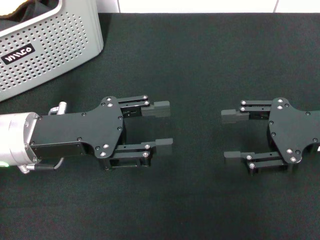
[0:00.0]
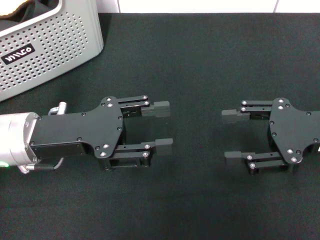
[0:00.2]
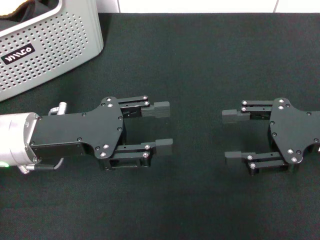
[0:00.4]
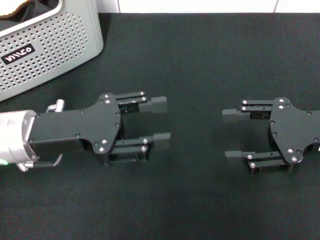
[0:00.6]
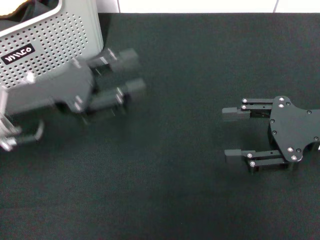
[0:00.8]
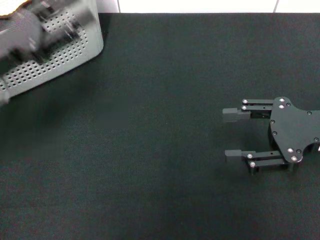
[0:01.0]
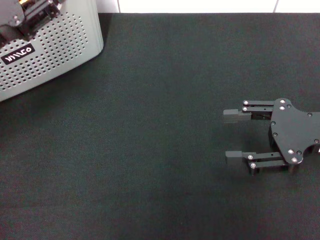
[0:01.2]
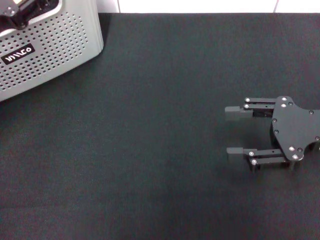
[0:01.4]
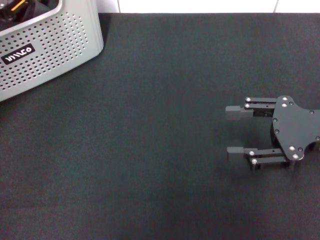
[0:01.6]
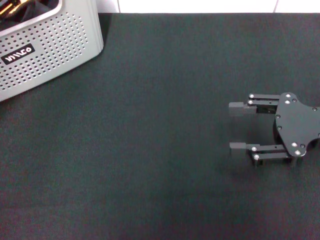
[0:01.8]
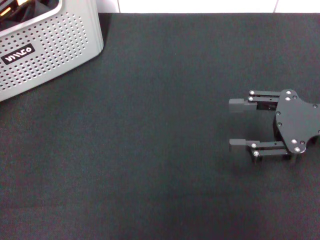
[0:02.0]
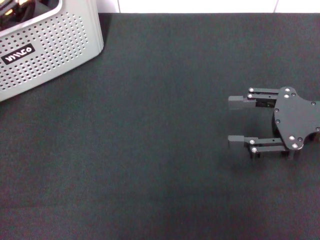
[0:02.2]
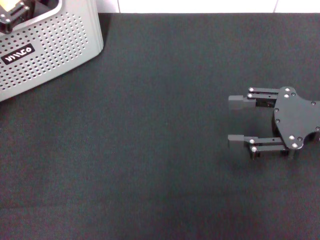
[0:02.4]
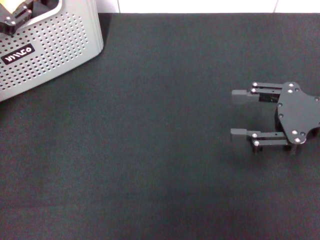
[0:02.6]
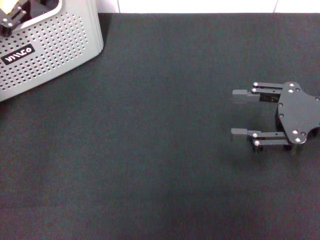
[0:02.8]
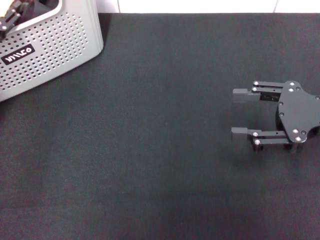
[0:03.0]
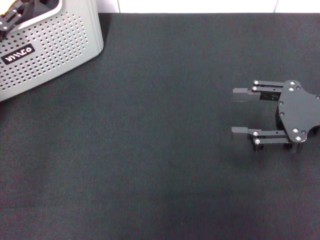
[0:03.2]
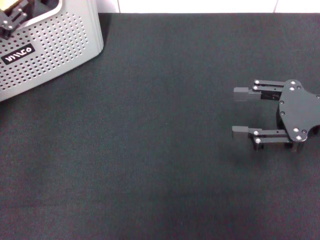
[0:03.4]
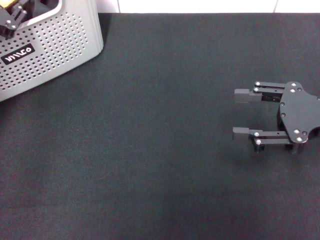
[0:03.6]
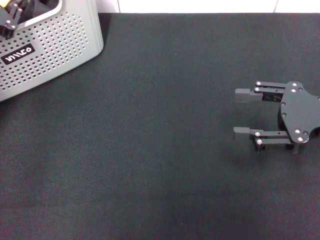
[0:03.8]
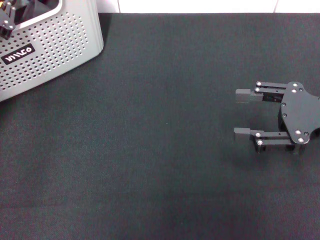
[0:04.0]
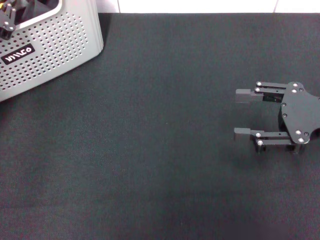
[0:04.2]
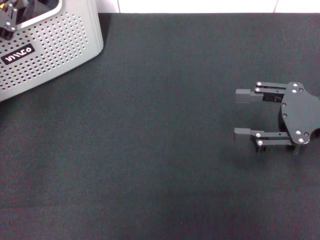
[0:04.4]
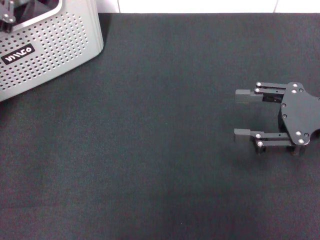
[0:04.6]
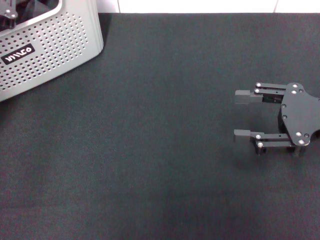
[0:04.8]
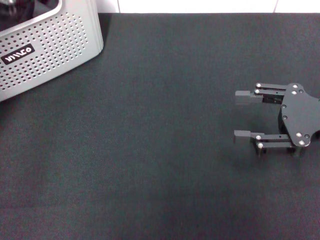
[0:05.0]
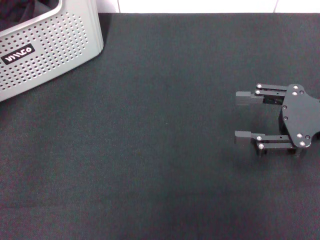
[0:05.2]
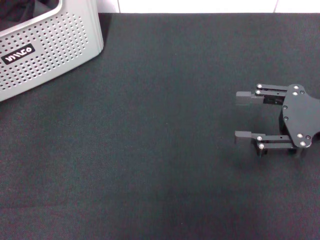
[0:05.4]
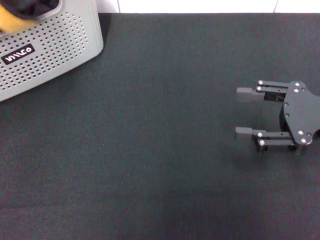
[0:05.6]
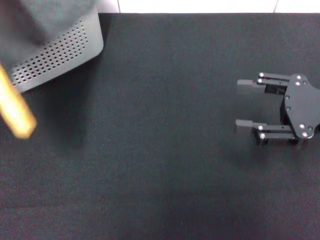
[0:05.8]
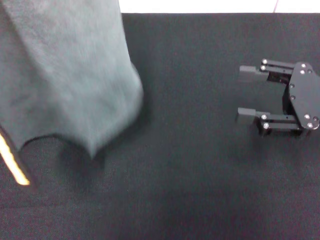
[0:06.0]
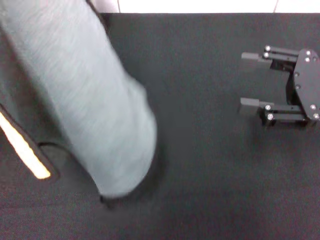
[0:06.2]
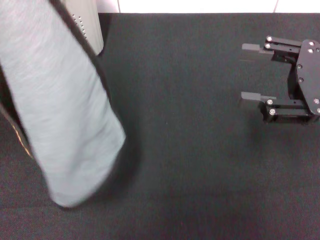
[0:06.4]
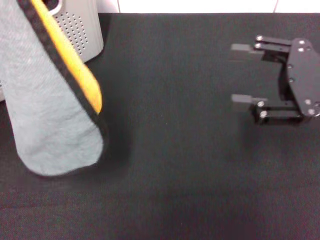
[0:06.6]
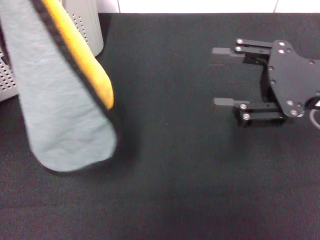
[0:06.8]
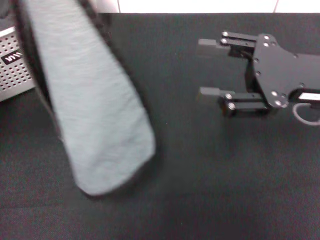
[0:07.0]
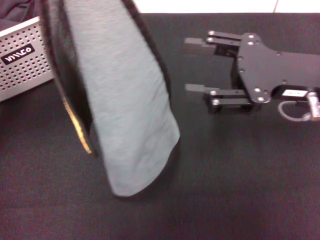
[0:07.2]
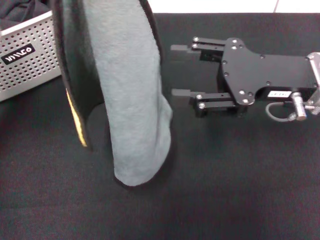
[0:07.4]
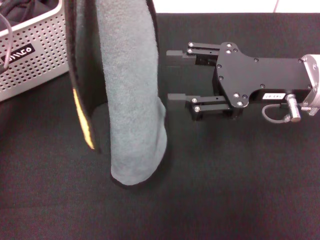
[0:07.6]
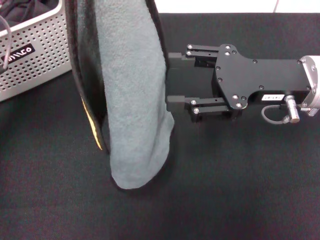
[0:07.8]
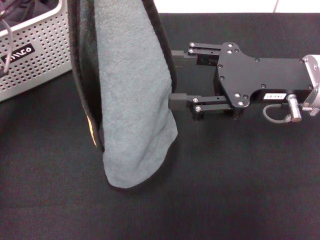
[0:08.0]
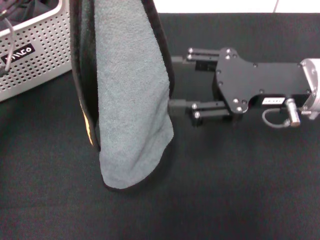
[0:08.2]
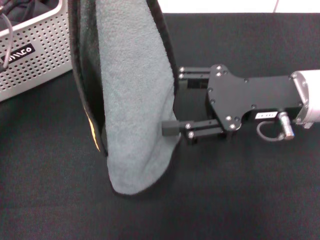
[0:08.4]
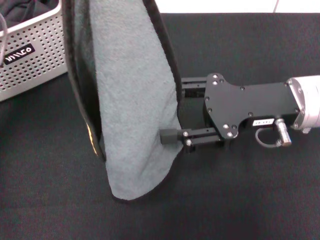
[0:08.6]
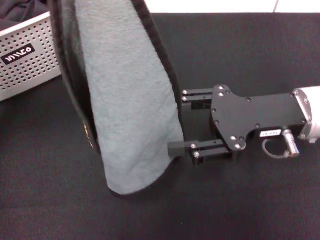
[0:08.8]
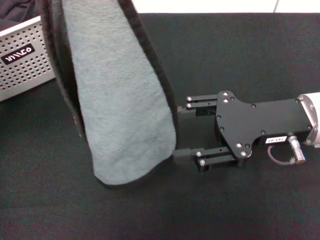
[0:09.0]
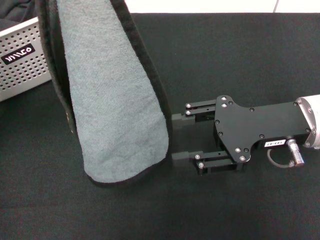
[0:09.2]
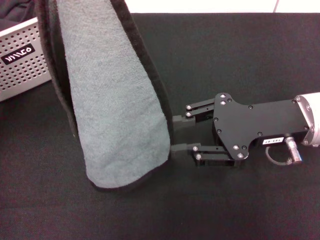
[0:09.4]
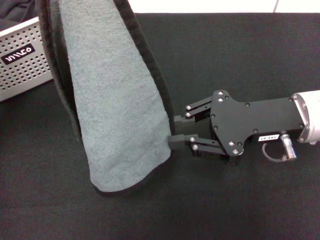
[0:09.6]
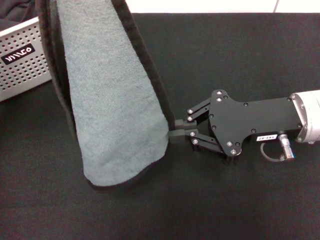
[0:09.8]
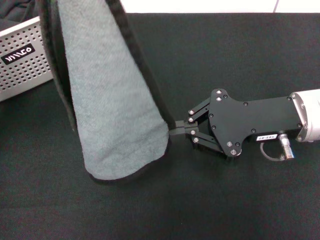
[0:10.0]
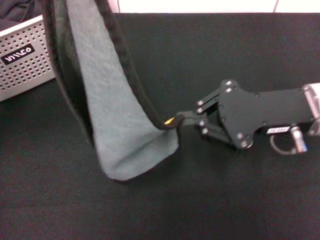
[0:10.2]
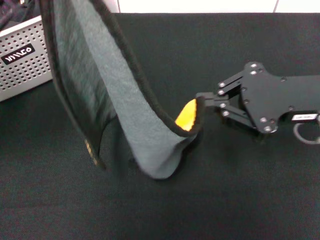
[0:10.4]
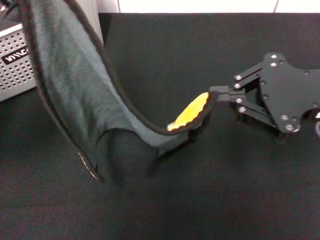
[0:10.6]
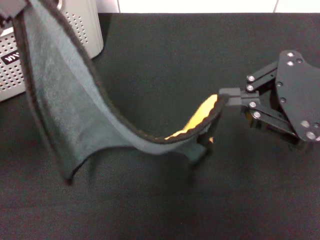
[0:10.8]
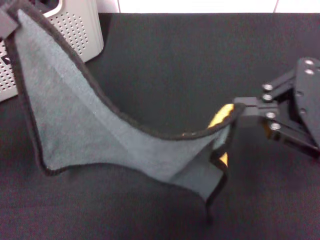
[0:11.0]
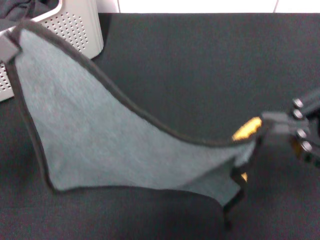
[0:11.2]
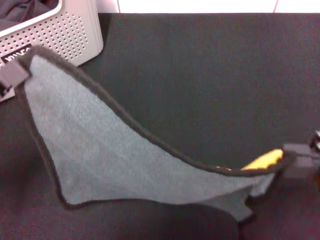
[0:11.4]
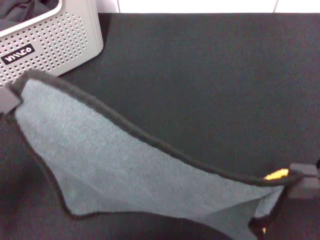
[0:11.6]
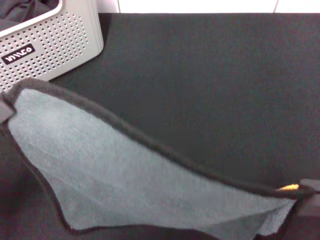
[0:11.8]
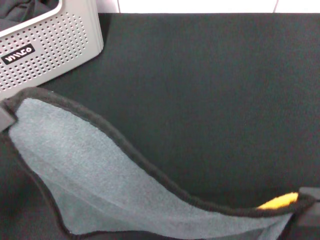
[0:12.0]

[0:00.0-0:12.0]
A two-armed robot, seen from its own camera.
Task of the whole recording: pick up the towel from the storage box and lay it flat on the black tablecloth.
Step, 0:00.0 to 0:04.0: Pick up a towel with the left gripper.
Step, 0:04.2 to 0:10.0: Spread the towel flat with the left gripper.
0:00.0 to 0:01.6: The left gripper heads to the left and forward, covering roughly 15 cm.
0:03.0 to 0:04.4: The left gripper closes up.
0:04.4 to 0:06.0: The left gripper is displaced upward and backward by some 10 cm.
0:06.0 to 0:07.6: The left gripper is displaced to the right by roughly 10 cm. Meanwhile the right gripper moves to the left, approximately 10 cm.
0:09.0 to 0:10.4: The right gripper closes up.
0:10.4 to 0:12.0: The left gripper travels backward and downward by roughly 15 cm; the right gripper moves backward and to the right, about 15 cm.

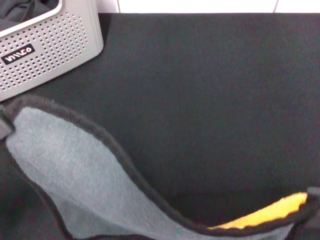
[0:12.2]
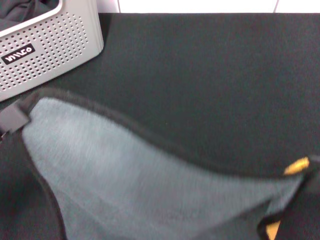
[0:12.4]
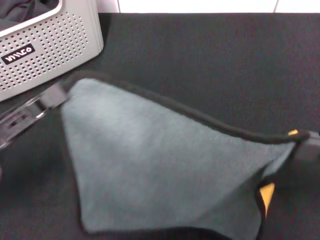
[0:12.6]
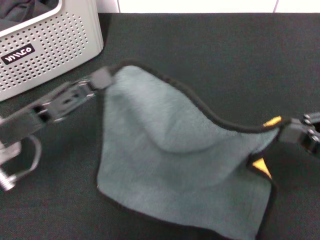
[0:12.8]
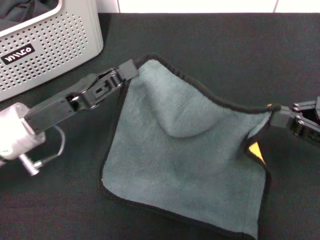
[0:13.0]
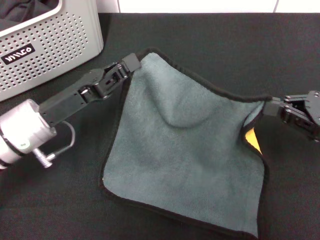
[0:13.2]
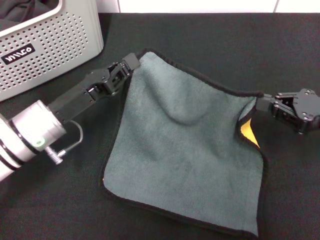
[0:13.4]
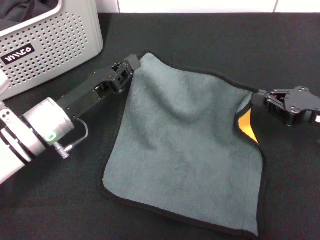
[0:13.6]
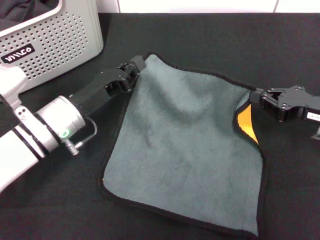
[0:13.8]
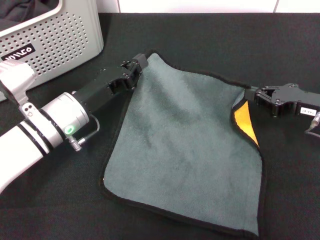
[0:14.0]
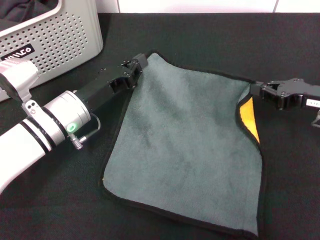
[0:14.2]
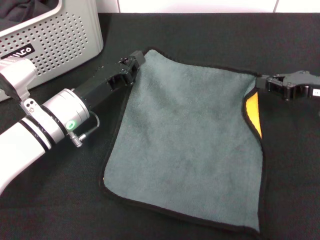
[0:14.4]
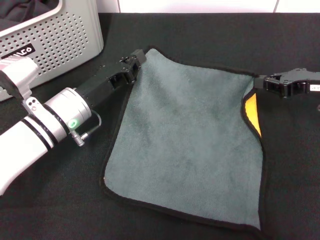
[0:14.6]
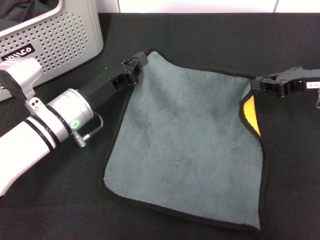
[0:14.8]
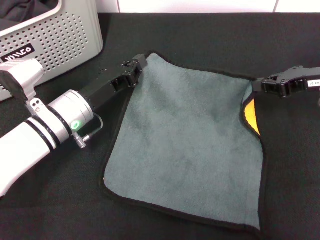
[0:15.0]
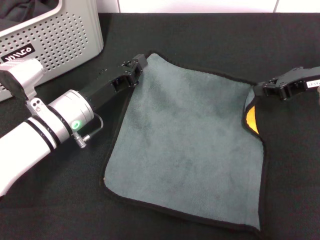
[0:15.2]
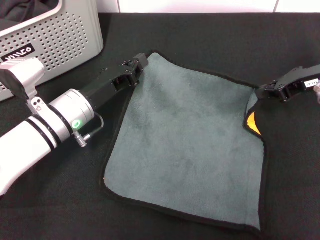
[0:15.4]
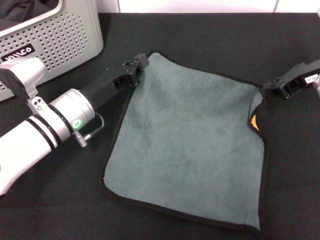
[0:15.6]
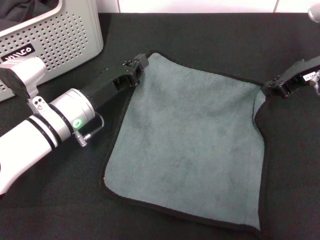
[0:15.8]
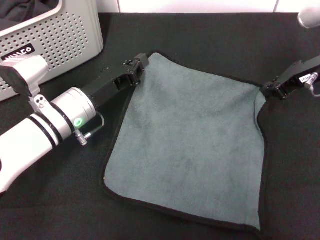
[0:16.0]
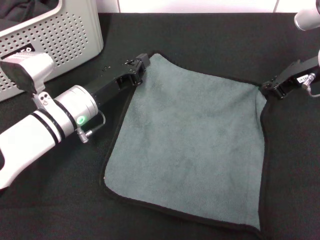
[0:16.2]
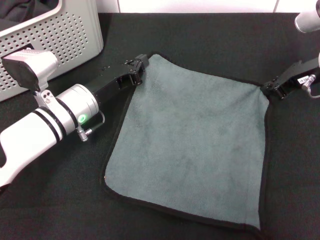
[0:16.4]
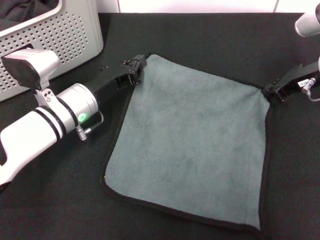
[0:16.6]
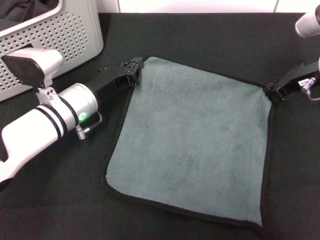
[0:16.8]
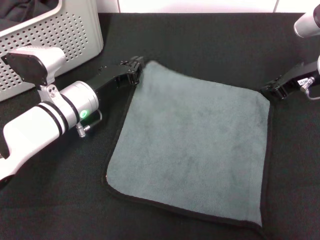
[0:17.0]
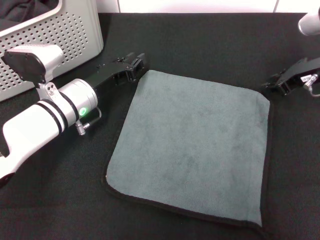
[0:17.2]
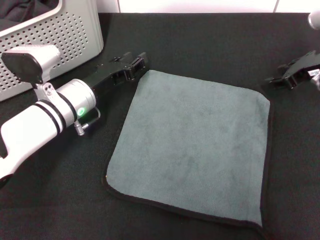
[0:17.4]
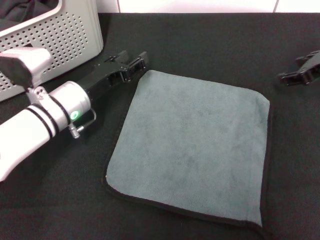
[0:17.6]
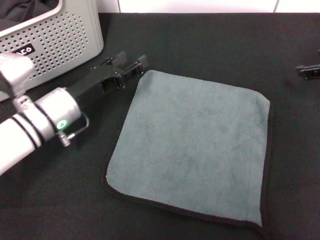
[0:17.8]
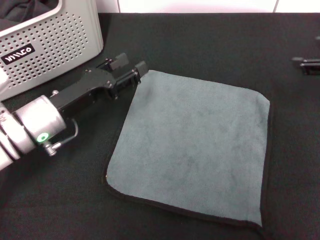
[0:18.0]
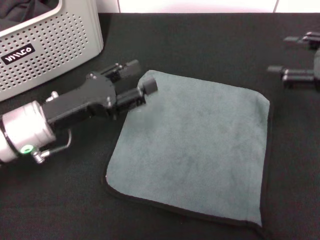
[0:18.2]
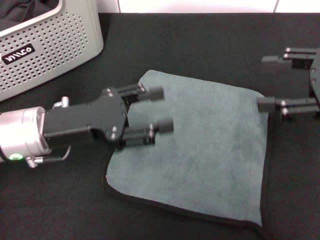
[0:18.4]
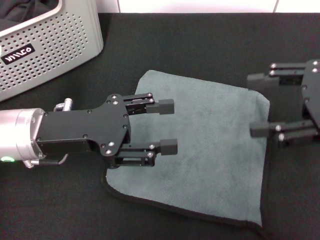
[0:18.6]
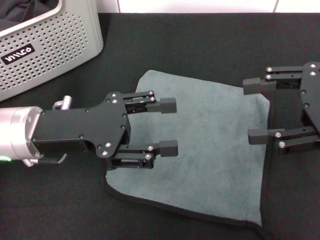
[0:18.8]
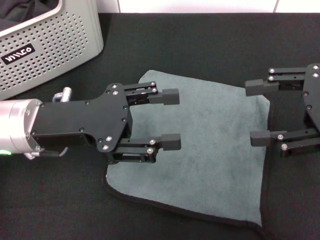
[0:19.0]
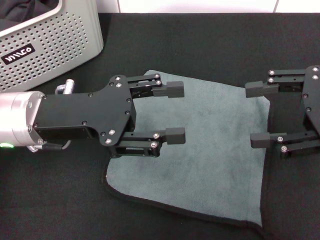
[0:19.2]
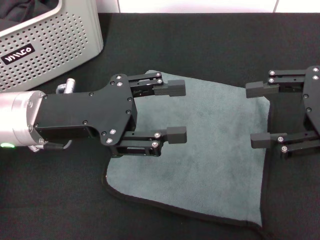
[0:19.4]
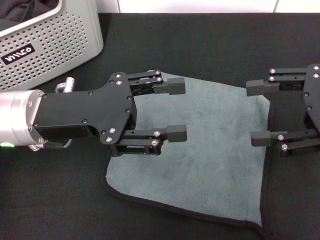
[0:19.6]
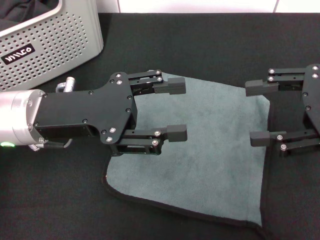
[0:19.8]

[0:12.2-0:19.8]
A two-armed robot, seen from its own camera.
Task of the whole recording: pick up the towel from the storage box and lay it flat on the black tablecloth.
Step, 0:12.2 to 0:17.0: Spread the towel flat with the right gripper.
0:12.2 to 0:13.8: The right gripper shifts some 25 cm forward and downward; the left gripper heads forward, to the right and downward, covering roughly 20 cm.
0:13.8 to 0:15.2: The right gripper heads forward and upward, covering roughly 10 cm.
0:16.8 to 0:18.2: The left gripper shifts some 5 cm backward, and opens up. The right gripper is displaced backward, upward and to the right by some 15 cm, and opens up.
0:18.2 to 0:19.8: The left gripper shifts about 5 cm upward.

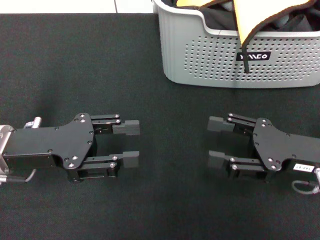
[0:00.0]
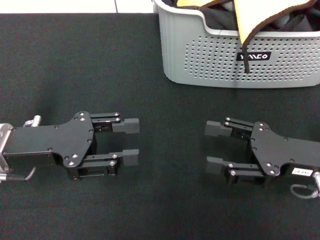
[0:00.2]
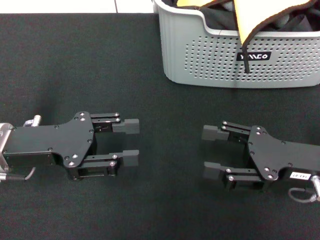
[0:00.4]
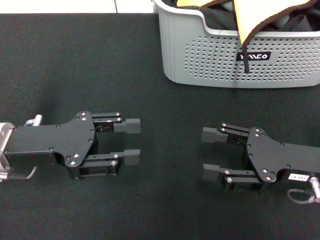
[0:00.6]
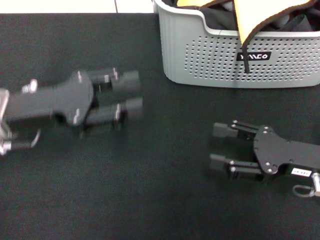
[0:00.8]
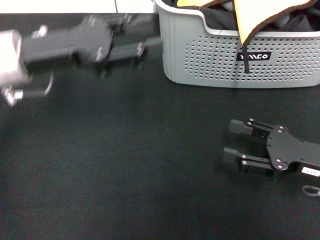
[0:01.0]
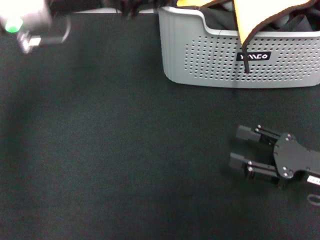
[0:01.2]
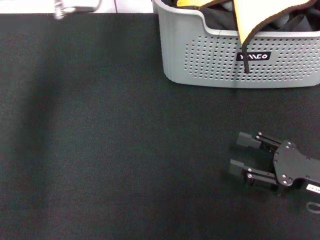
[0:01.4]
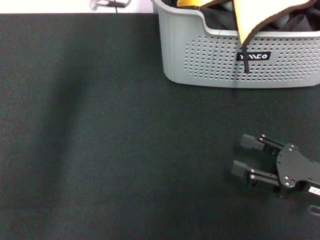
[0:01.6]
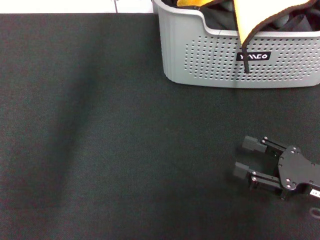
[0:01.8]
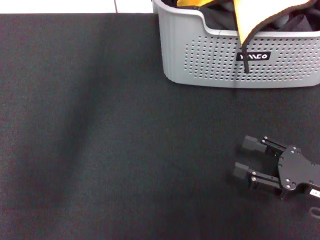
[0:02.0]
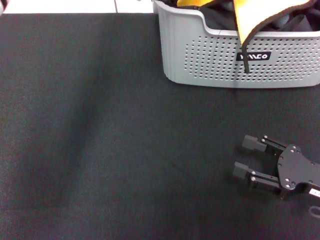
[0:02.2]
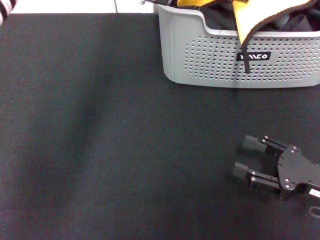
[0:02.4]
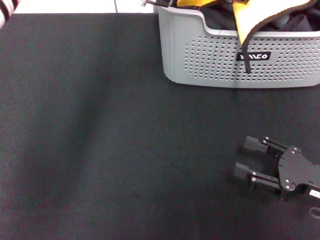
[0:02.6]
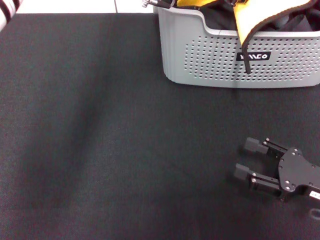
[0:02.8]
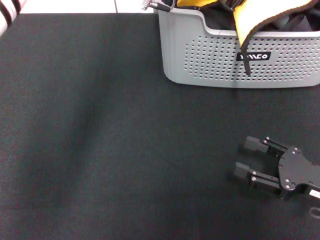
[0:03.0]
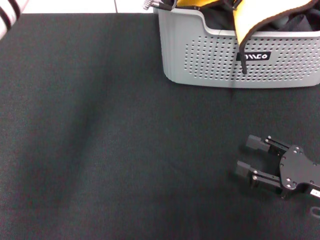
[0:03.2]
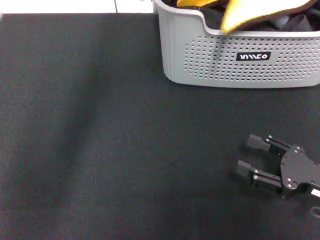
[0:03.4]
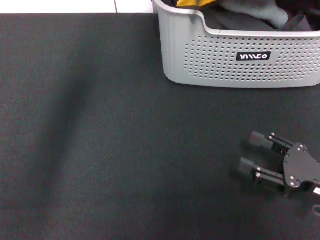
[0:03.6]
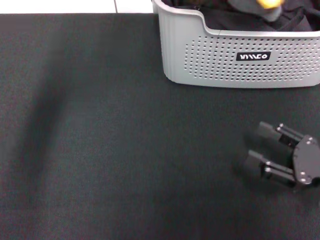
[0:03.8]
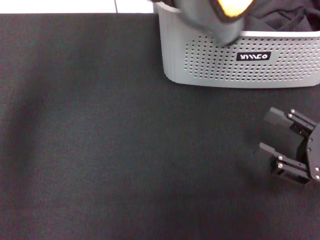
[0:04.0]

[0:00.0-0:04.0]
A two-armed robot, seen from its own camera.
Task of the whole recording: pick up the towel from the storage box and lay it flat on the black tablecloth.
Step, 0:00.0 to 0:03.2: Pick up a towel with the left gripper.
0:00.0 to 0:01.4: The left gripper shifts about 20 cm upward, forward and to the right. The right gripper changes place by approximately 5 cm.
0:01.4 to 0:02.6: The left gripper travels to the right by some 10 cm.
0:02.6 to 0:04.0: The left gripper travels to the left, upward and backward by roughly 20 cm, and closes up.
